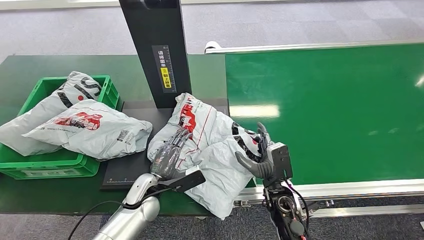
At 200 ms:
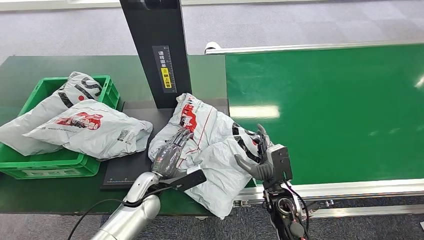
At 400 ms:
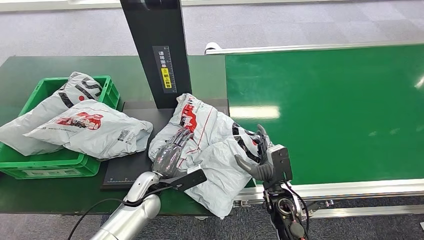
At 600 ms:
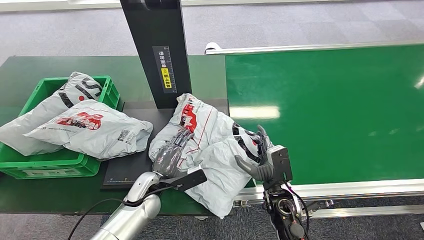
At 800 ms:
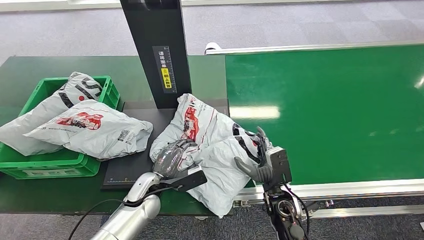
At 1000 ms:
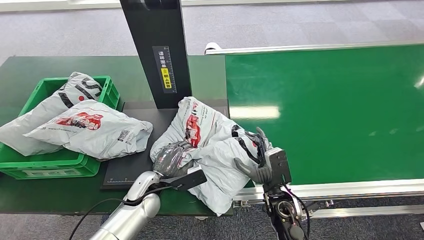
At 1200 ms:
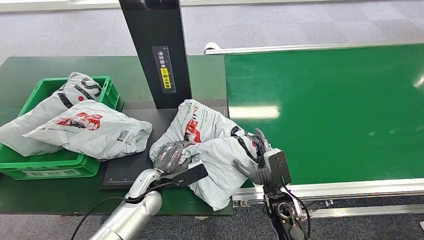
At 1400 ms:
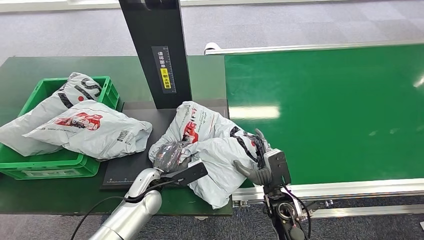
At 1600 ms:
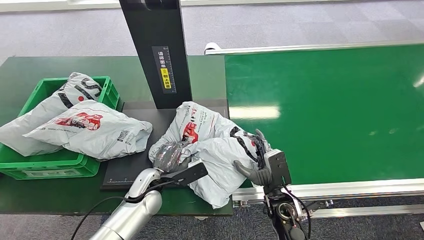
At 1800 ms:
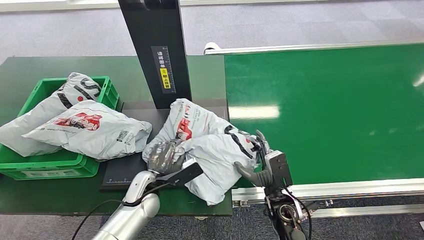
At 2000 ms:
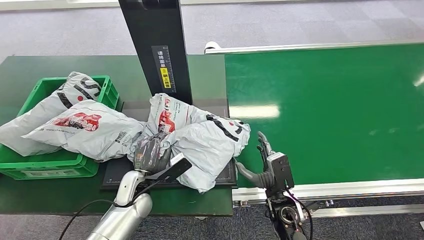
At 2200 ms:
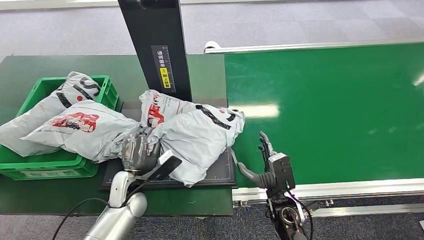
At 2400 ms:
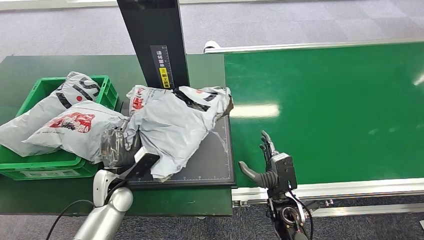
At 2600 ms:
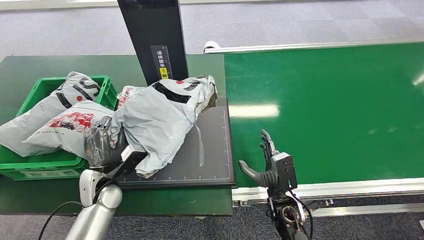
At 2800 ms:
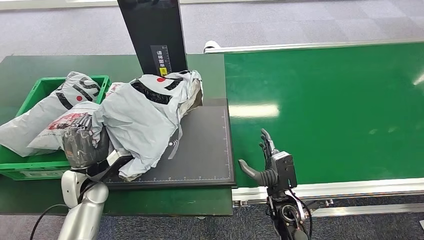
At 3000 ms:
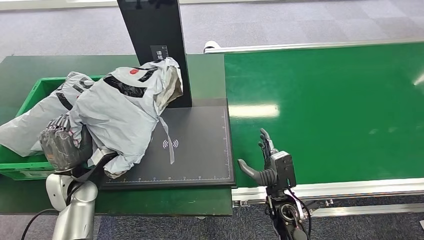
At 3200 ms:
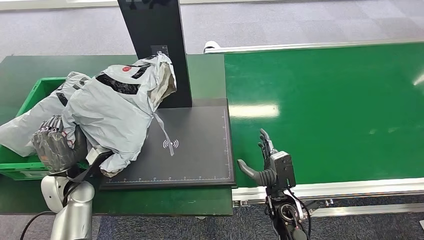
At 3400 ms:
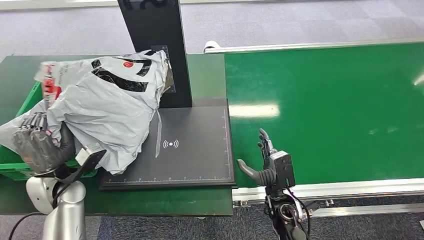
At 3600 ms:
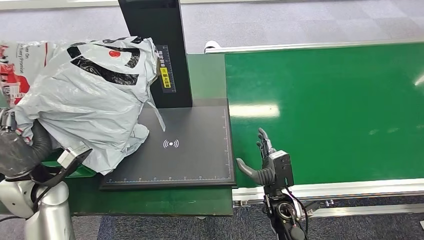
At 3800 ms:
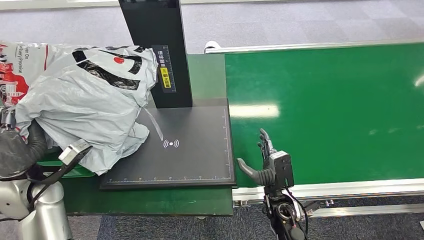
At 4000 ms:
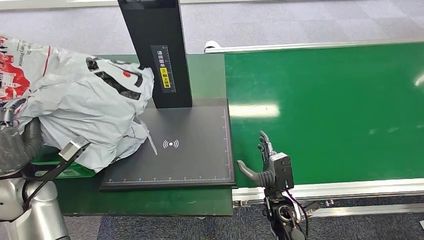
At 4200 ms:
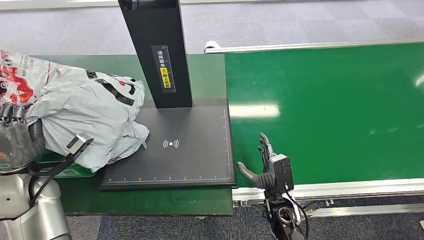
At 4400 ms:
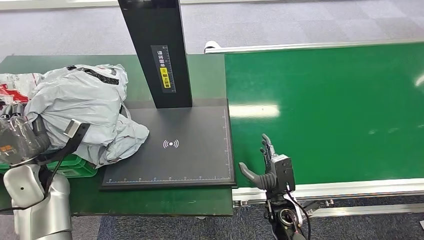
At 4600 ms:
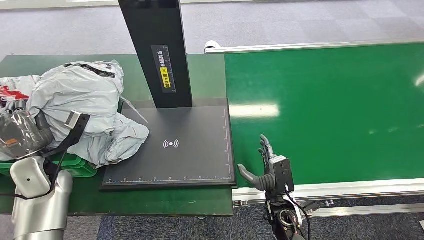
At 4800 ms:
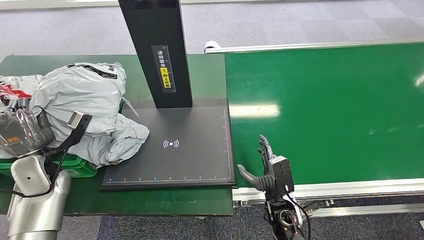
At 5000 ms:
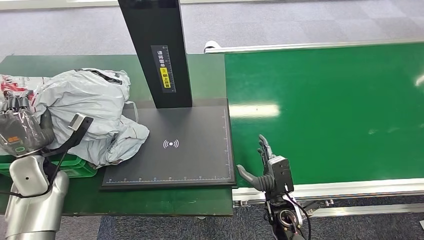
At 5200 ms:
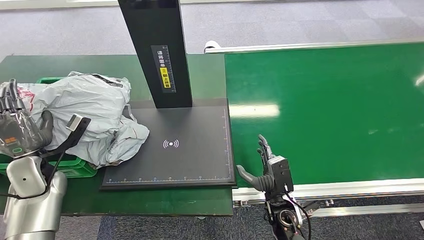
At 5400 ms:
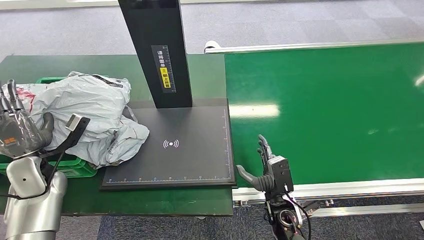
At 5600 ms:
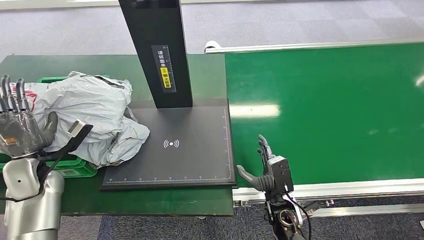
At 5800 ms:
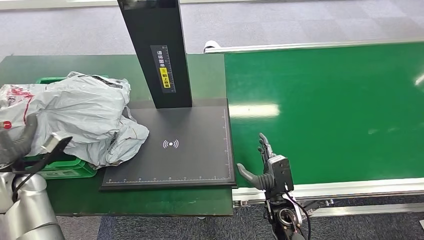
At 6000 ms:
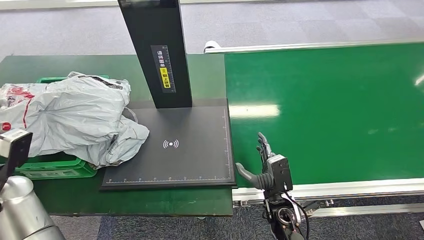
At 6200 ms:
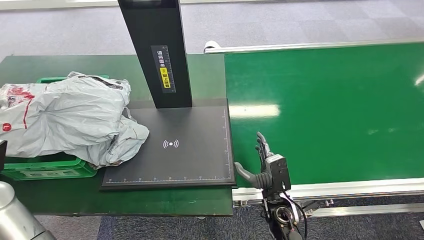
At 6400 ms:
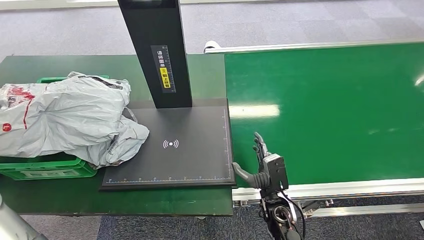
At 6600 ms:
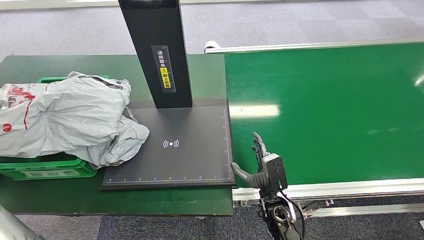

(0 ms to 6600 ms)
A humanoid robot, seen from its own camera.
Step, 0 ms - 2600 ms: Pick up the package from the inbound machine.
Step, 2800 ms - 6600 ms: Place the package into the parcel locker.
0 ms - 1600 ms: The hands make only small movements.
3200 ms - 5000 ms: The left hand travels to the left by approximately 5 cm.
5000 ms - 6600 ms: The left hand is displaced upward and backward by approximately 15 cm.
